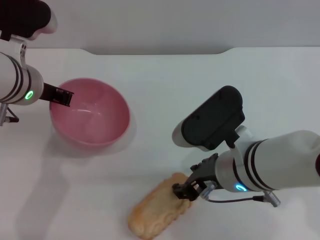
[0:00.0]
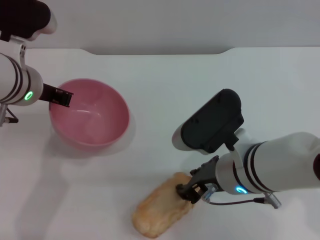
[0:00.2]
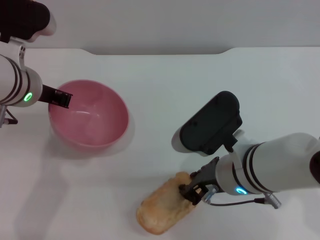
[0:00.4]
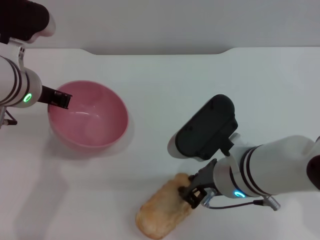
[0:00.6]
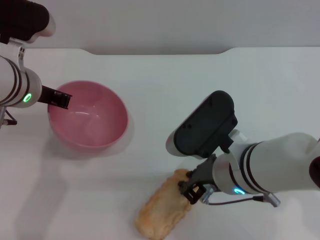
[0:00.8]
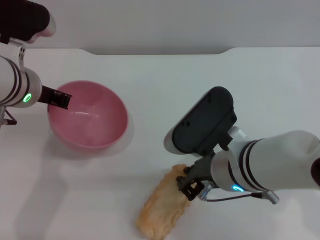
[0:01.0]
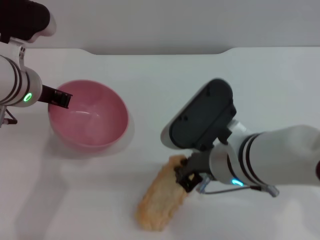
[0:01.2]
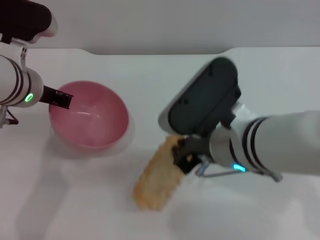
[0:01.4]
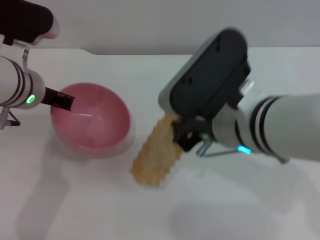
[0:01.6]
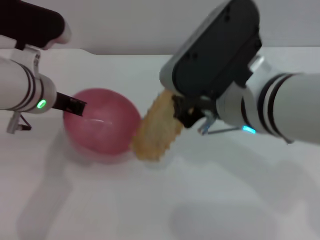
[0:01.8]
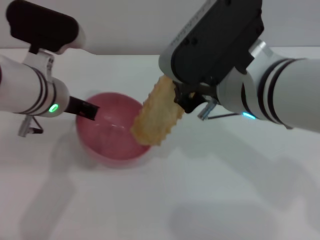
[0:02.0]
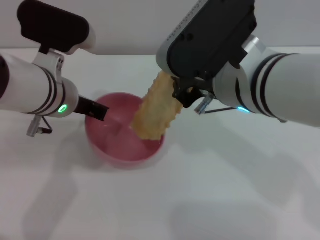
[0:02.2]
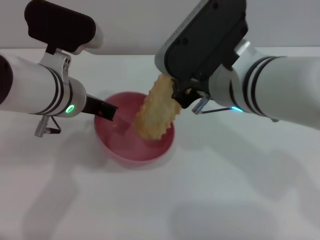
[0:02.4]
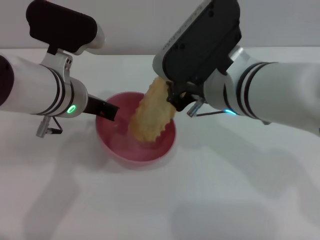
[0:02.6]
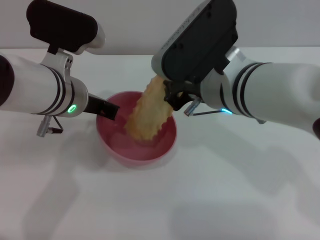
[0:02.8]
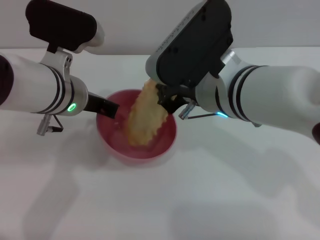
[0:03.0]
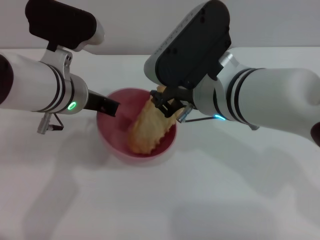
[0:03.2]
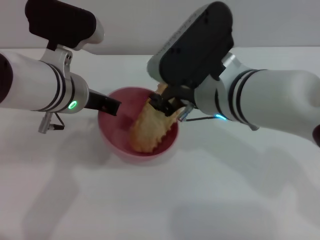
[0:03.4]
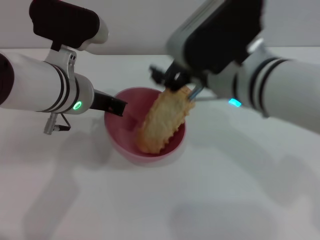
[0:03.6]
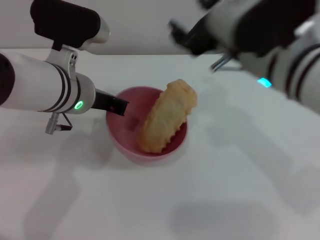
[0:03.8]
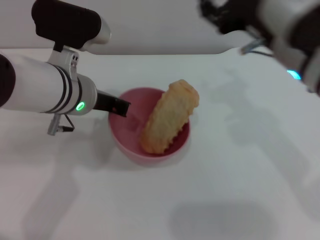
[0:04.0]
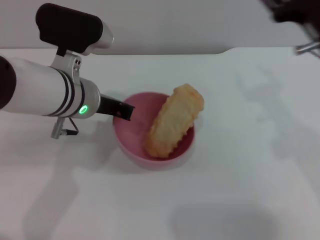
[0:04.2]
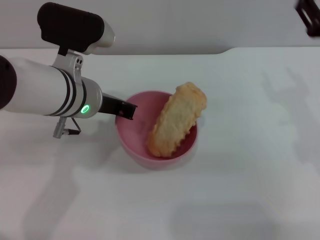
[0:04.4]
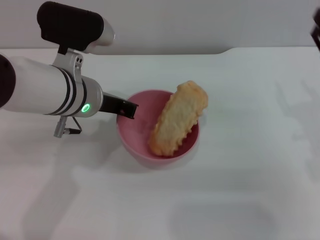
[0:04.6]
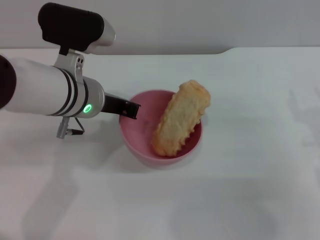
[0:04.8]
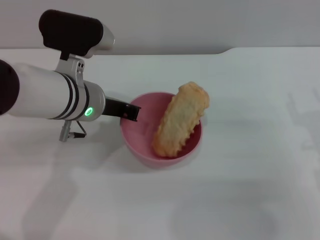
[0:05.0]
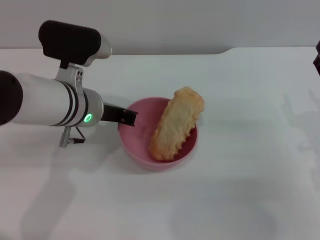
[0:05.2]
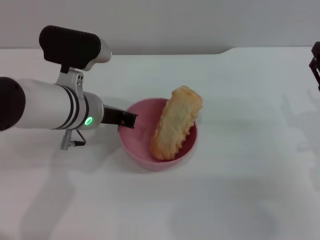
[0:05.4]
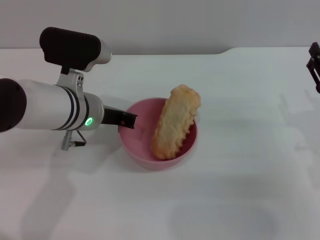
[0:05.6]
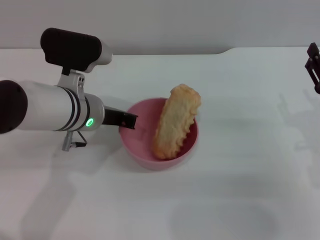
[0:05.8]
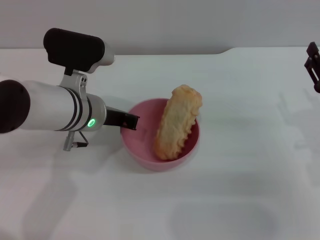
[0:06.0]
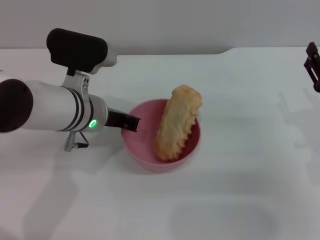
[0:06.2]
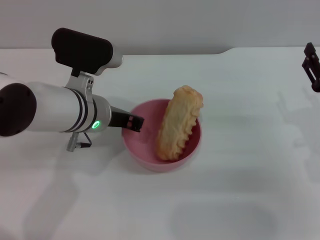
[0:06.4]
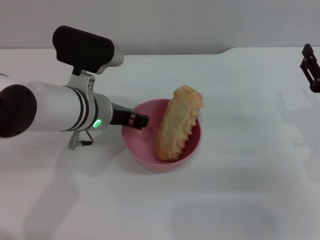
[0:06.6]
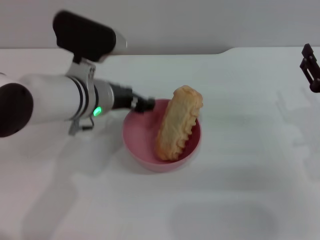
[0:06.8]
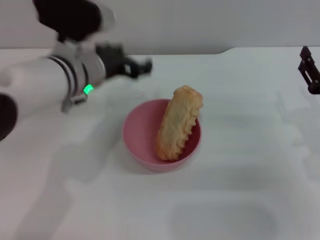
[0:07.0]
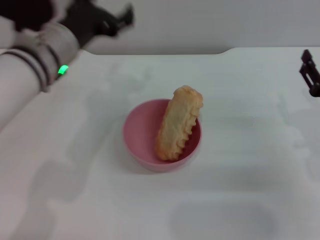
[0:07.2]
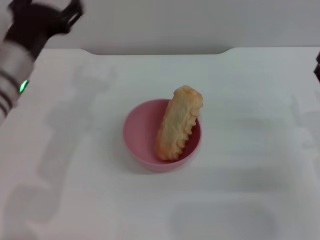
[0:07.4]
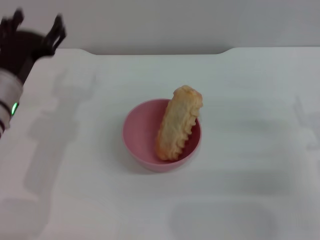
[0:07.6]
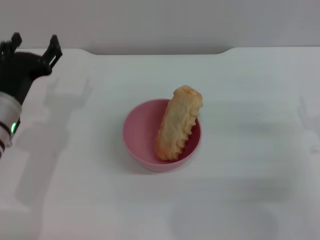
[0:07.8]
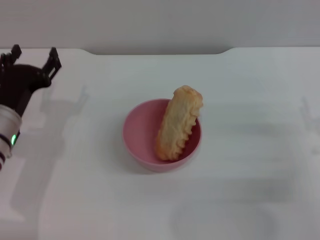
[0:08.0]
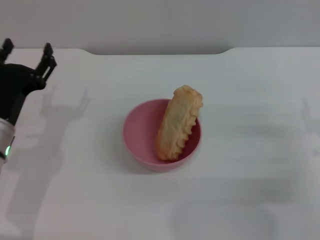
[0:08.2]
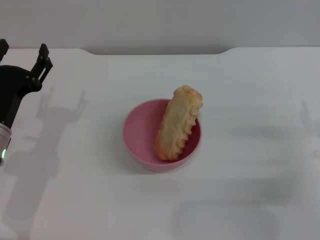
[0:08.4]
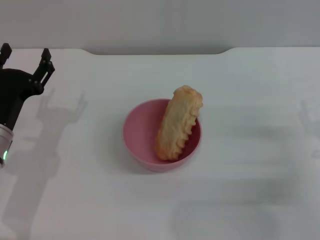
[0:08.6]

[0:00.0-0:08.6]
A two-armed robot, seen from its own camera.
Task of the whole recording: put the bread into the pink bowl and pour it out repeatedly.
Step, 0:02.2 to 0:03.6: Place the bread into the bowl.
Step, 0:03.8 to 0:06.8: Place the bowl on the table.
0:00.0 to 0:01.4: The right gripper ends up about 5 cm from where it was, and closes.
0:01.4 to 0:02.8: The left gripper travels to the right by roughly 5 cm. The right gripper shifts approximately 5 cm forward.
0:02.8 to 0:04.4: The right gripper is displaced to the right by some 15 cm, and opens.
0:04.4 to 0:05.8: The right gripper travels downward by some 5 cm.
0:05.8 to 0:07.2: The left gripper travels upward by approximately 5 cm, and opens up.
0:07.2 to 0:08.6: The left gripper moves downward, to the left and backward, roughly 15 cm.
